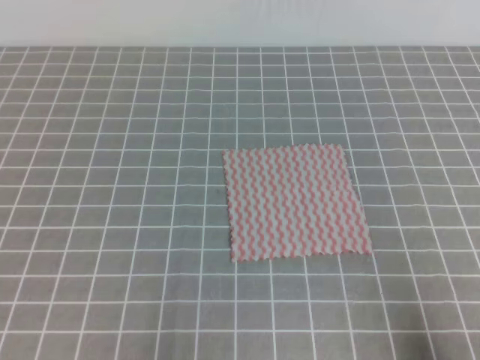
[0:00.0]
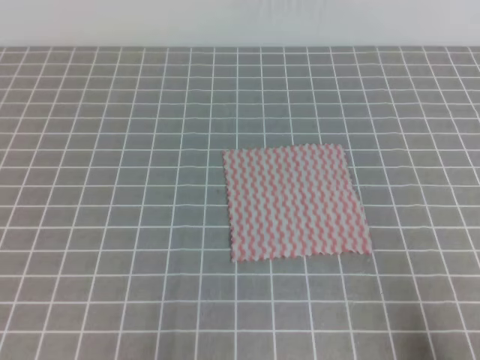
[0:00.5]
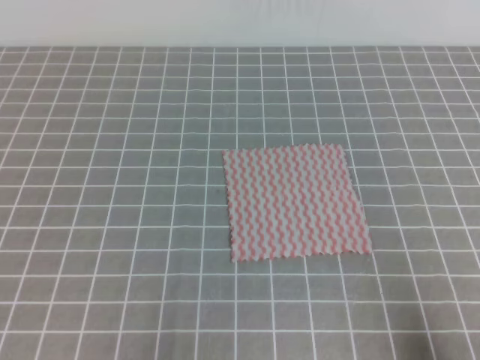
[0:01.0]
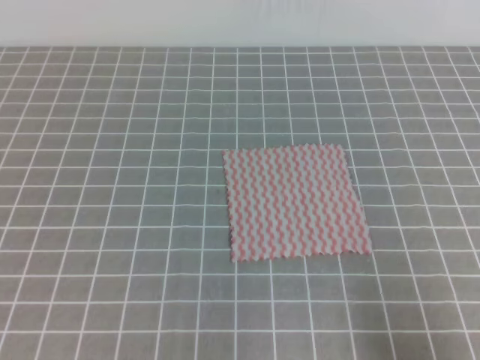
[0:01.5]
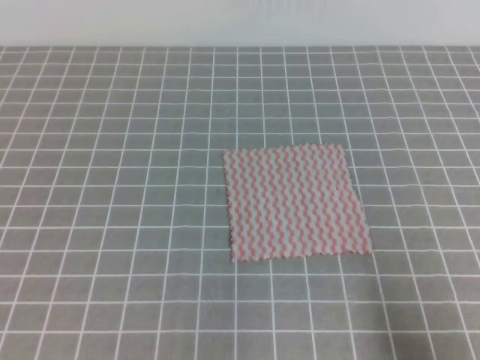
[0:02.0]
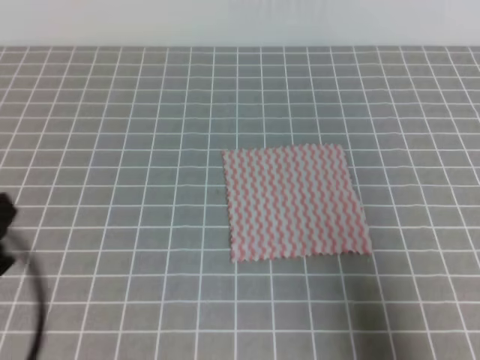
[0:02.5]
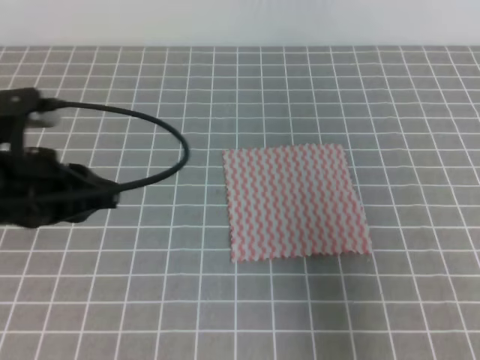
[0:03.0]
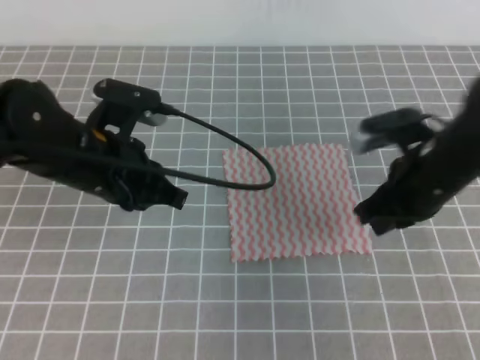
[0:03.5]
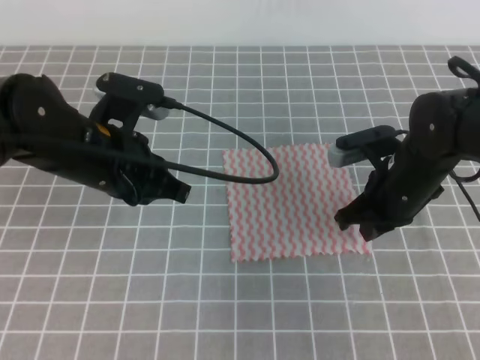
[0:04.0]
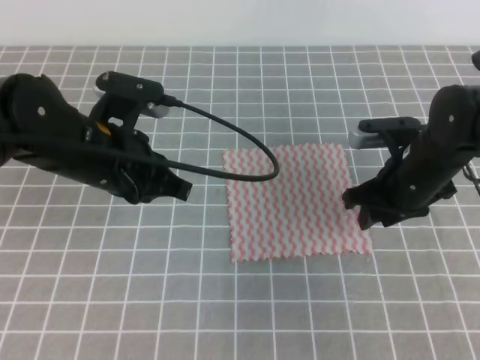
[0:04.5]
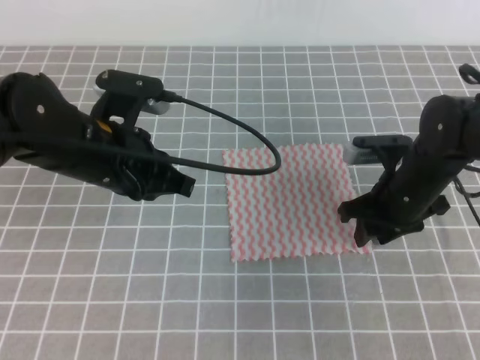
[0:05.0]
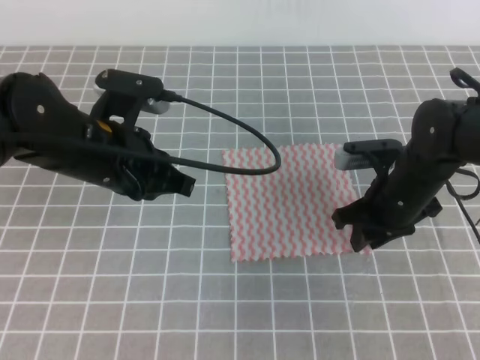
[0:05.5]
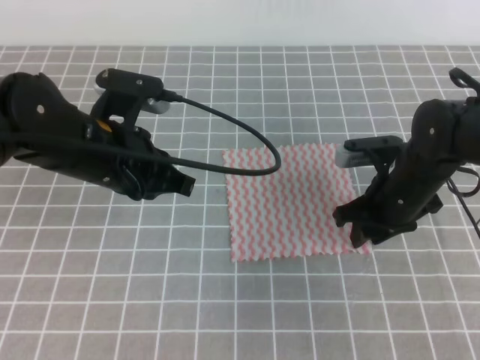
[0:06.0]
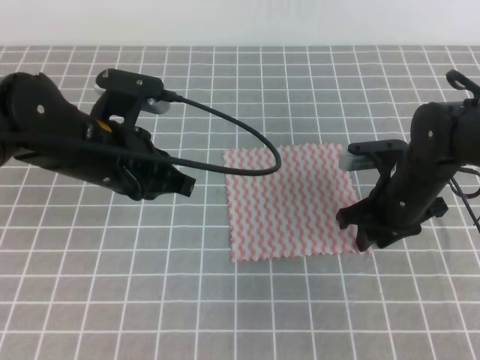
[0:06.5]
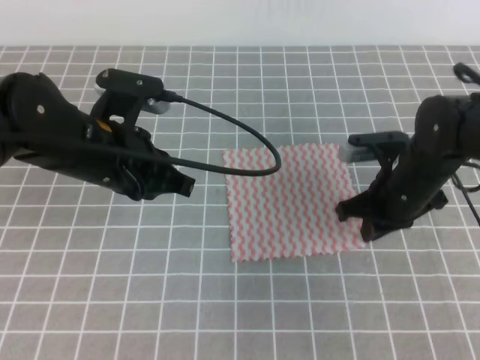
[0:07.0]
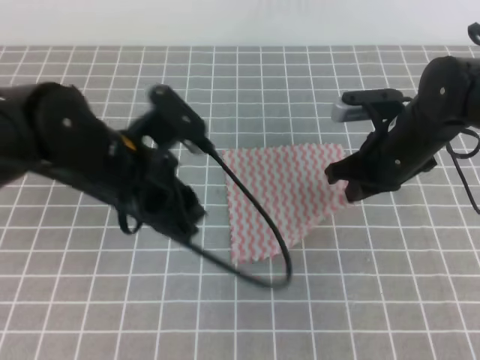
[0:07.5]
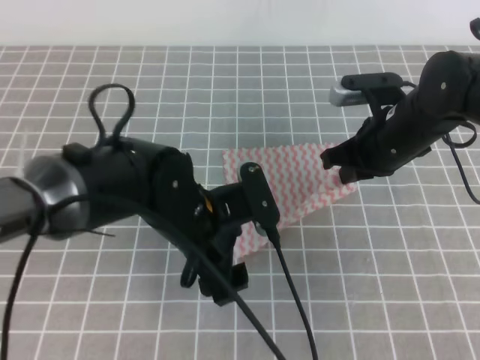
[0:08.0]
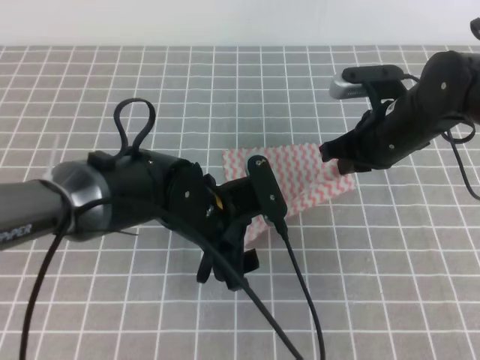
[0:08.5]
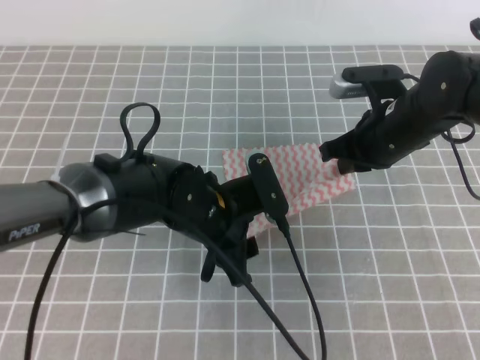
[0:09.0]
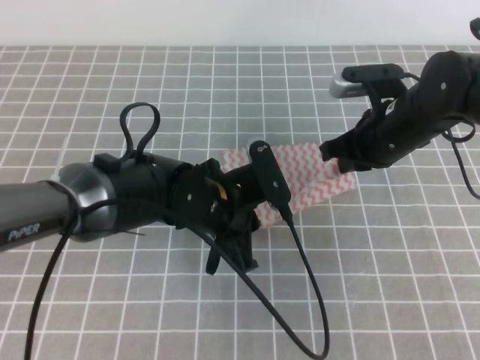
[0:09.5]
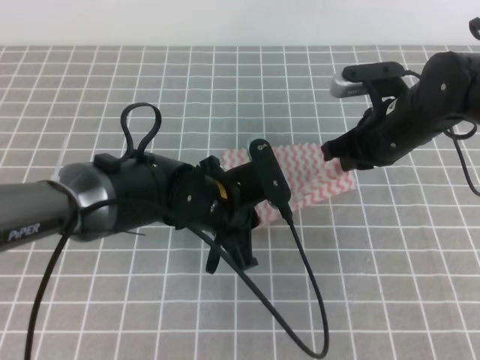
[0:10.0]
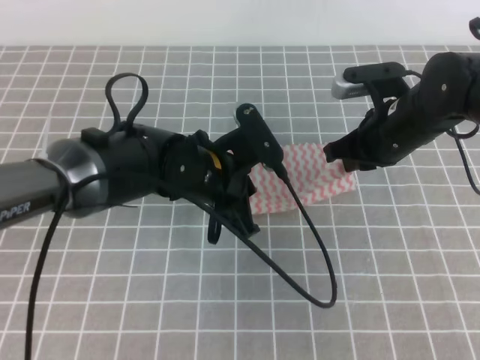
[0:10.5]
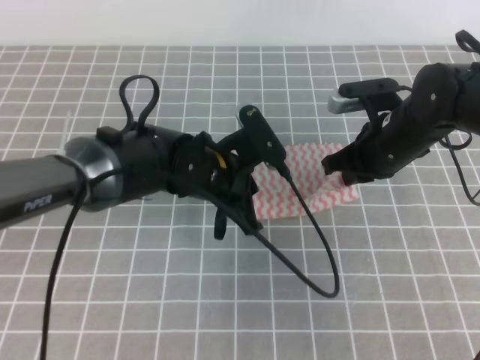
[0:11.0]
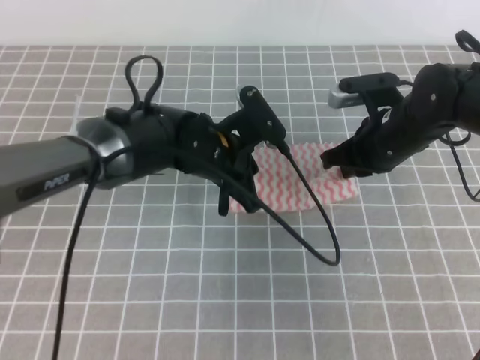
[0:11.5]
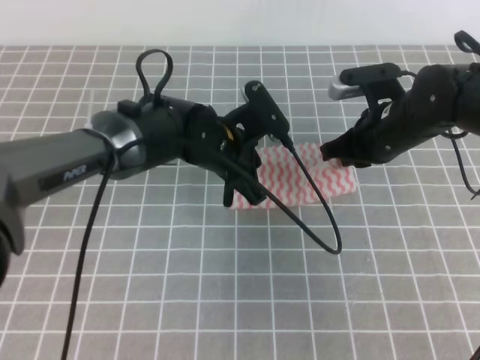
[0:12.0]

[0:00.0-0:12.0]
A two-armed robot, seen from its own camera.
0:02.0 to 0:04.0: The left gripper is displaced forward and to the right by some 25 cm. The right gripper is displaced forward and to the left by roughly 30 cm.
0:04.0 to 0:06.0: The right gripper opens.
0:06.0 to 0:08.0: The left gripper travels to the right and downward by roughly 10 cm, and opens its fingers; the right gripper moves upward, some 5 cm, and closes.
0:08.0 to 0:10.0: The left gripper closes its fingers.
0:10.0 to 0:12.0: The left gripper moves forward, roughly 5 cm.

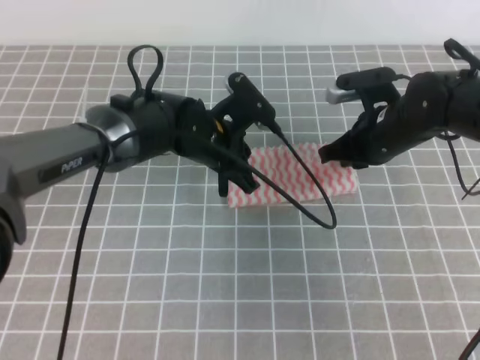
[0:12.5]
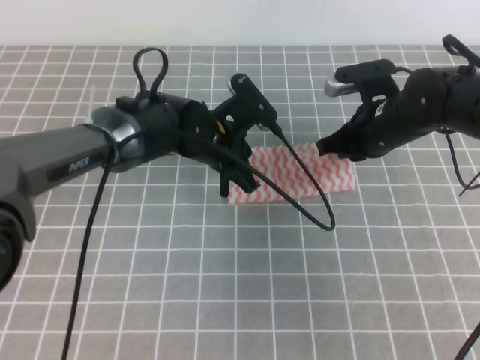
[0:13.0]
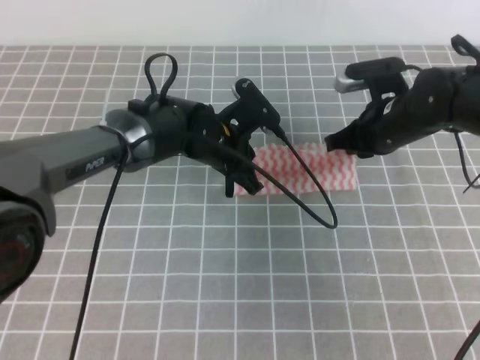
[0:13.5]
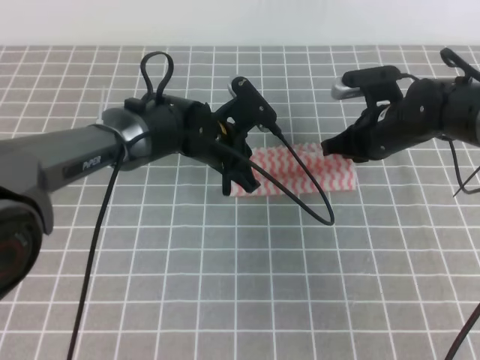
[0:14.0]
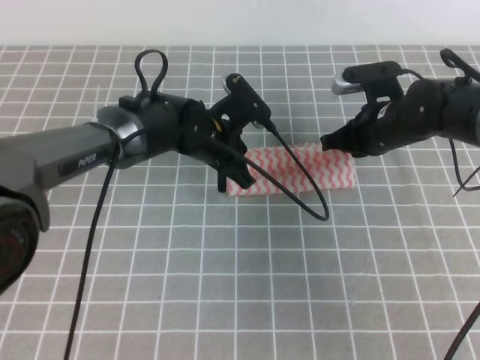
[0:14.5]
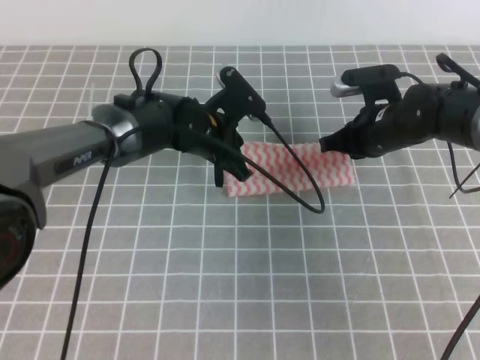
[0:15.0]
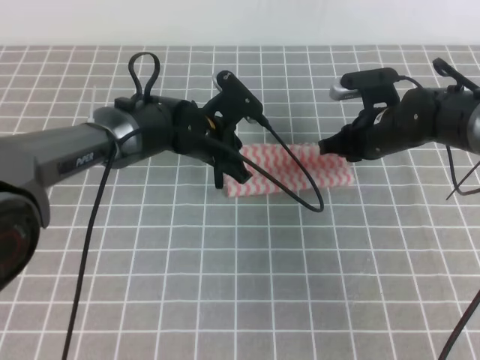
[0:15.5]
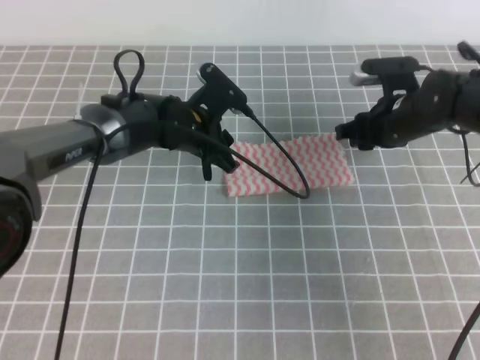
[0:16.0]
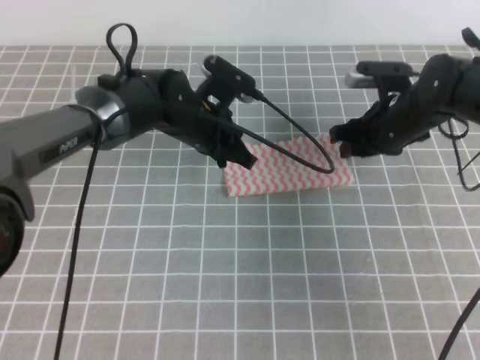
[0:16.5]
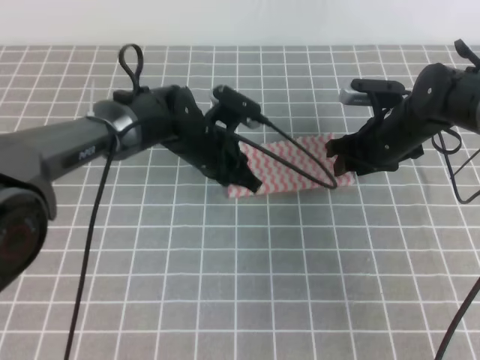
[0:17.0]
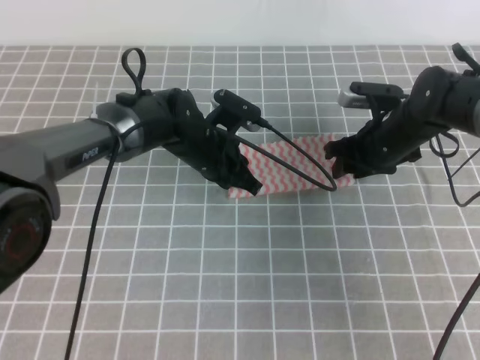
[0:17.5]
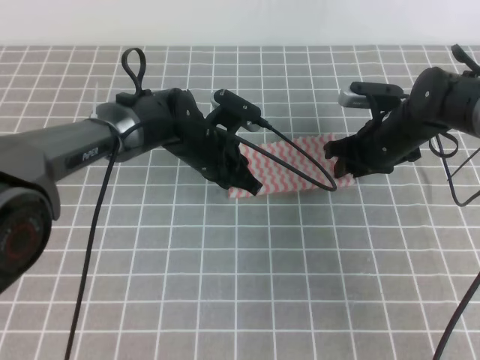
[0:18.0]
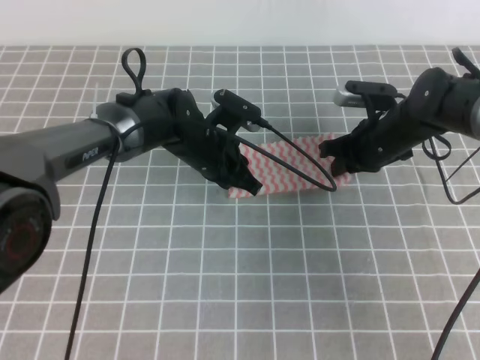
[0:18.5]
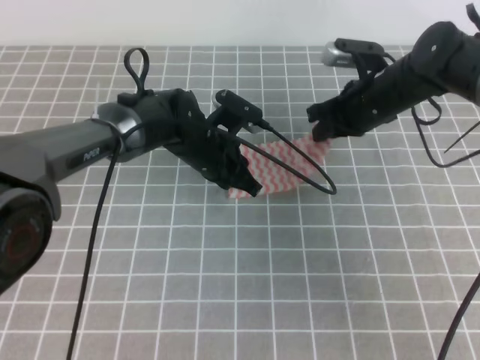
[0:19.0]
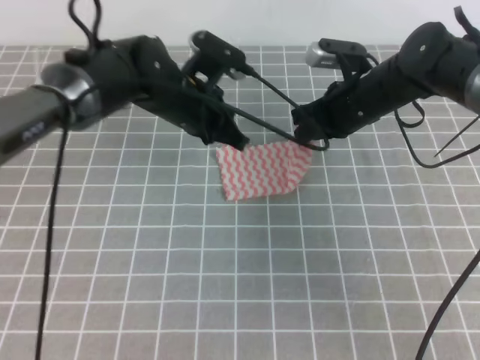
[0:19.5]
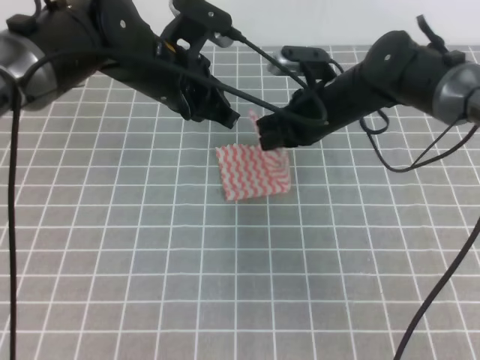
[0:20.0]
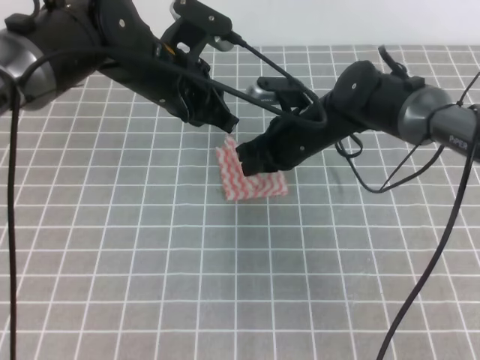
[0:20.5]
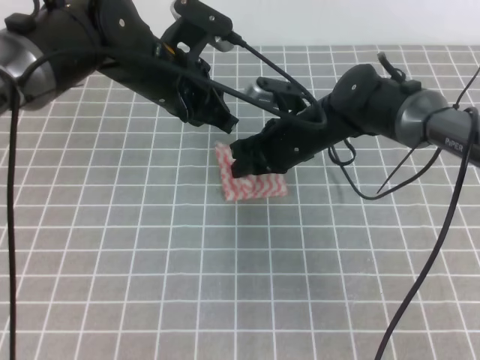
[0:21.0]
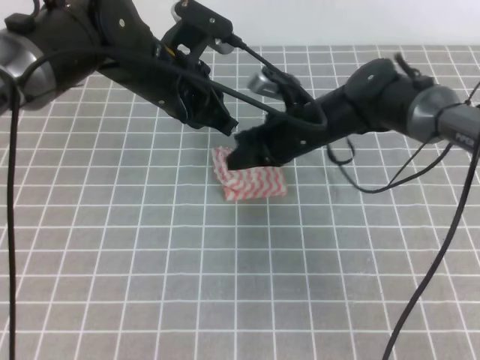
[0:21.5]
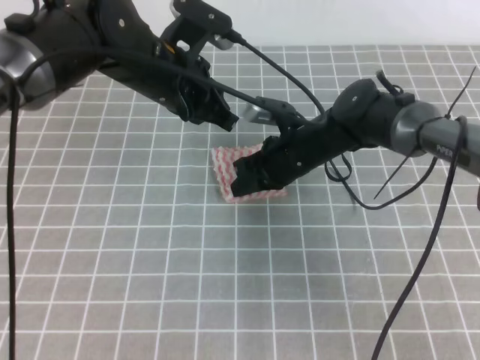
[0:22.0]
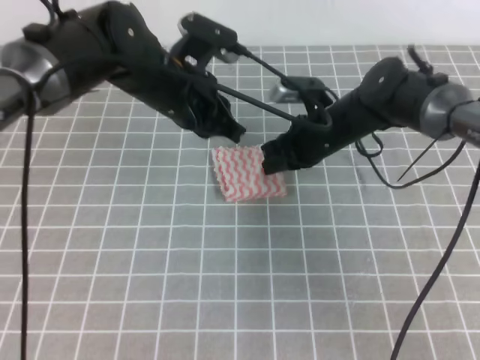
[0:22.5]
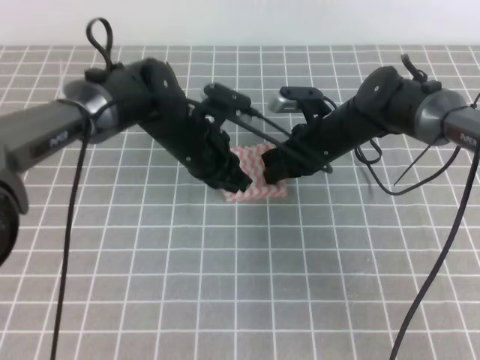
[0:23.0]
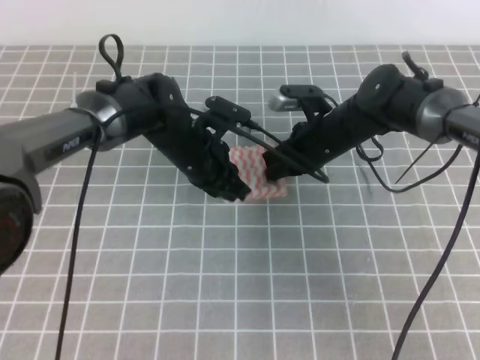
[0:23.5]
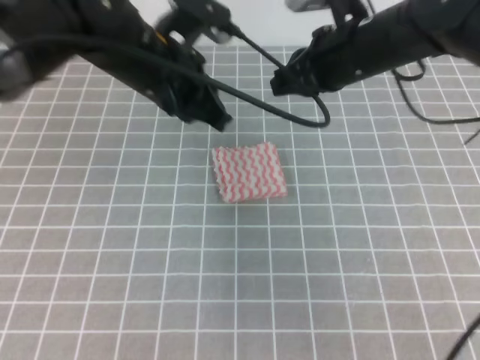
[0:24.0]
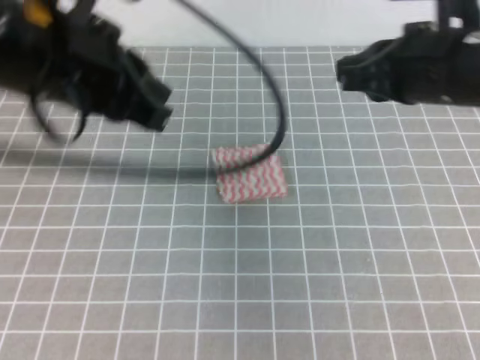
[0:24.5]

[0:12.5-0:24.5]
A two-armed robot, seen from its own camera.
0:12.5 to 0:14.5: The grippers move only a little.
0:14.5 to 0:16.5: The right gripper opens.
0:16.5 to 0:18.5: The right gripper closes up.
0:18.5 to 0:20.5: The right gripper travels to the left by about 10 cm, while the left gripper goes some 15 cm upward.
0:20.5 to 0:22.5: The right gripper opens, then closes again.
0:22.5 to 0:24.5: The right gripper is displaced upward, backward and to the right by about 25 cm. Meanwhile the left gripper moves backward, upward and to the left, roughly 20 cm.

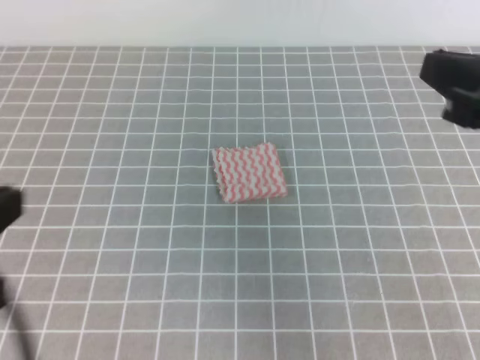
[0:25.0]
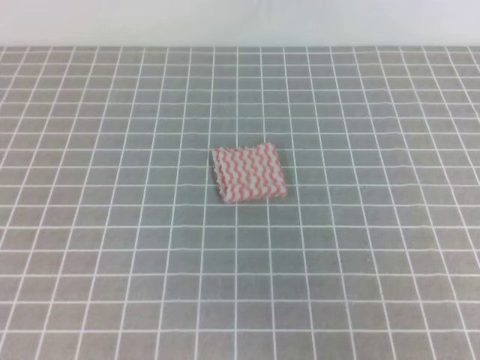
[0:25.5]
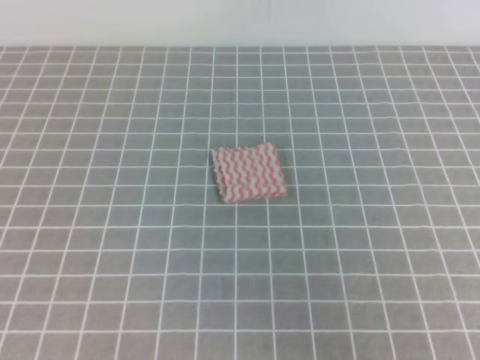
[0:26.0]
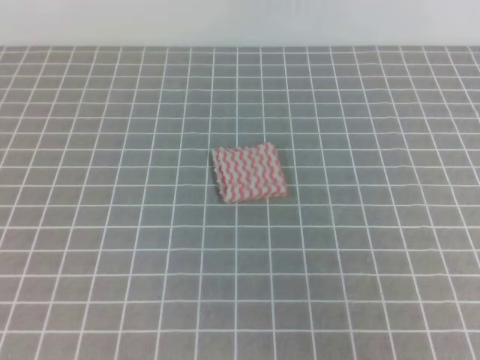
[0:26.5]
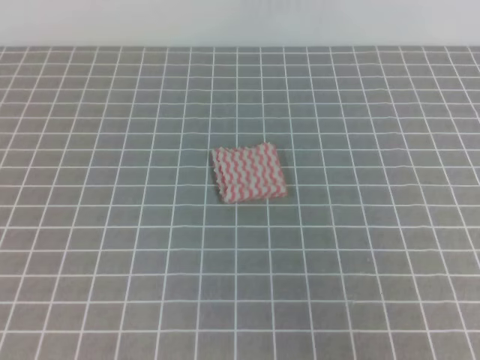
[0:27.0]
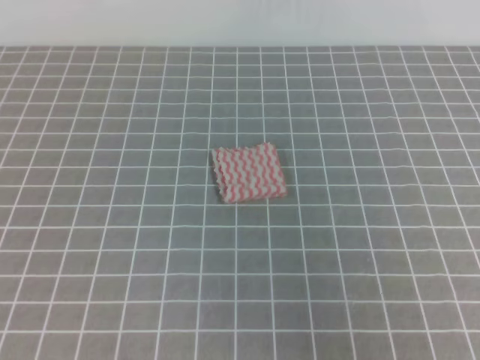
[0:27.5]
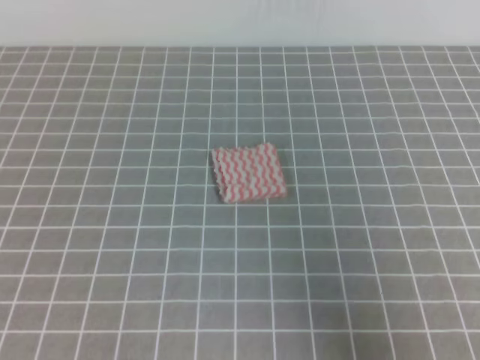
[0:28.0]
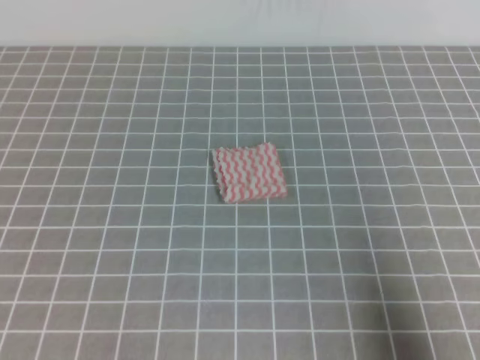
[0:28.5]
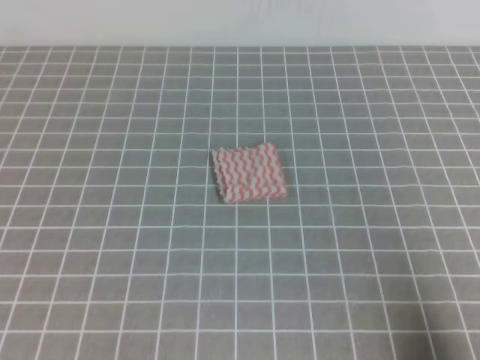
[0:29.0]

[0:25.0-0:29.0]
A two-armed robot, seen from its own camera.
0:25.0 to 0:27.0: The right gripper moves backward, roughly 10 cm. The left gripper heads backward and to the left, covering roughly 10 cm.
0:27.0 to 0:29.0: The right gripper heads downward, covering approximately 15 cm.
